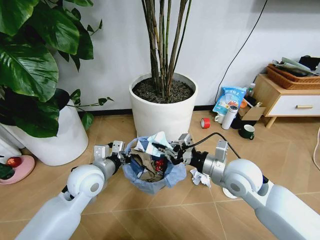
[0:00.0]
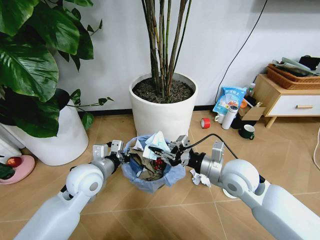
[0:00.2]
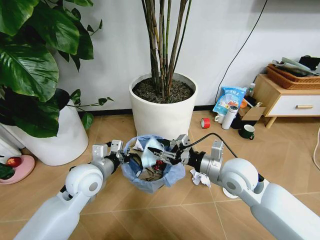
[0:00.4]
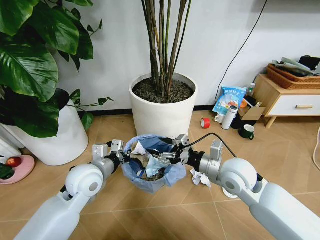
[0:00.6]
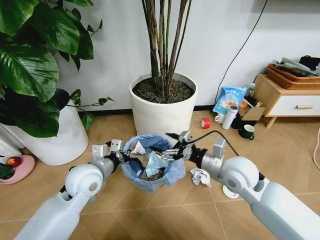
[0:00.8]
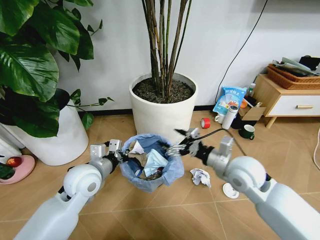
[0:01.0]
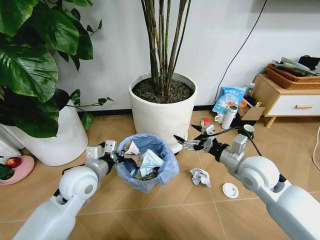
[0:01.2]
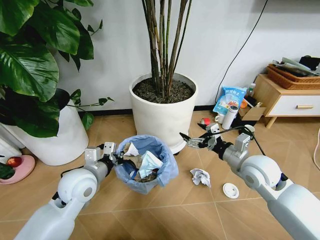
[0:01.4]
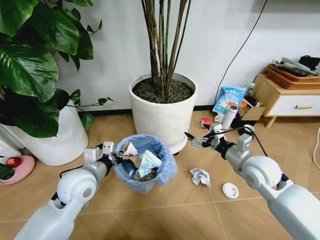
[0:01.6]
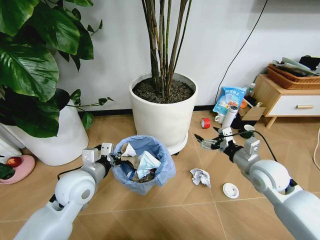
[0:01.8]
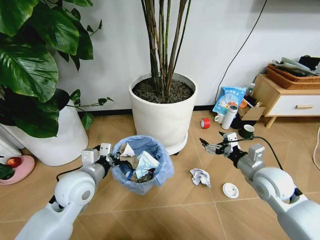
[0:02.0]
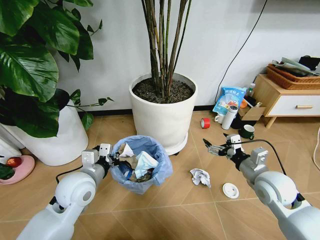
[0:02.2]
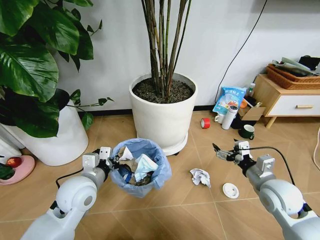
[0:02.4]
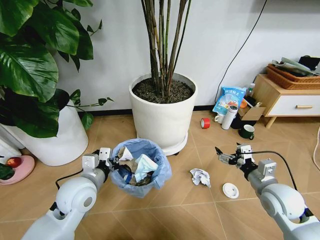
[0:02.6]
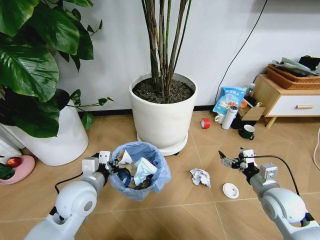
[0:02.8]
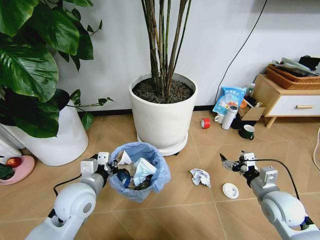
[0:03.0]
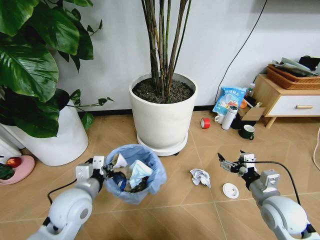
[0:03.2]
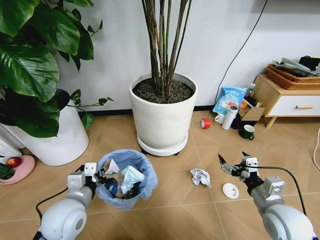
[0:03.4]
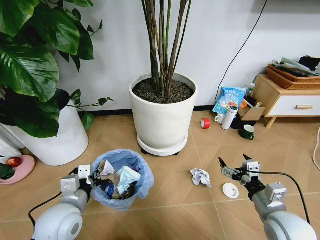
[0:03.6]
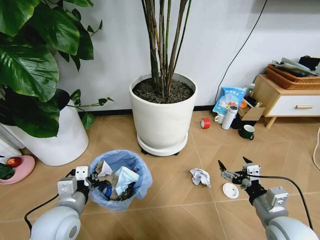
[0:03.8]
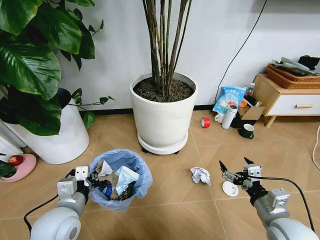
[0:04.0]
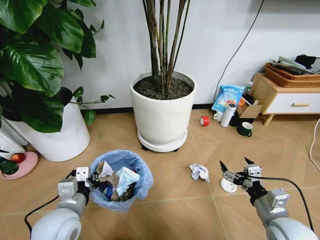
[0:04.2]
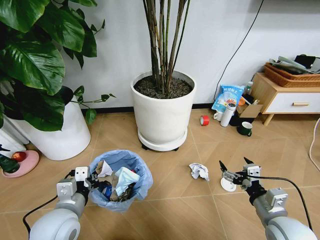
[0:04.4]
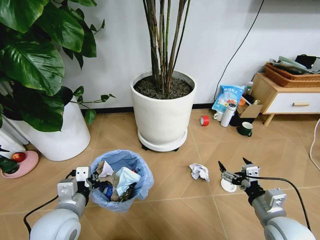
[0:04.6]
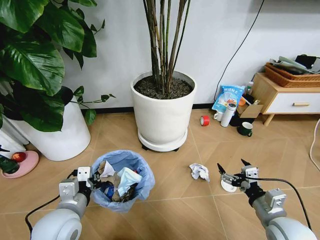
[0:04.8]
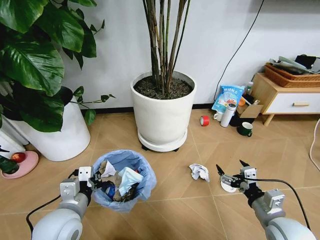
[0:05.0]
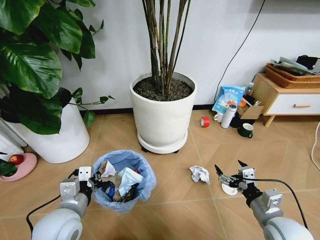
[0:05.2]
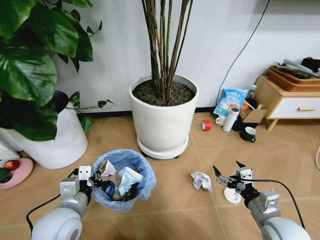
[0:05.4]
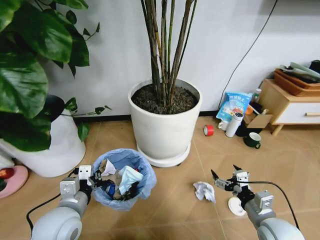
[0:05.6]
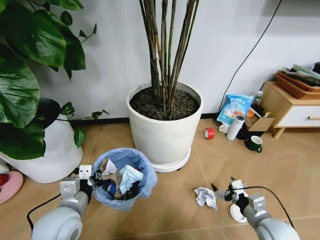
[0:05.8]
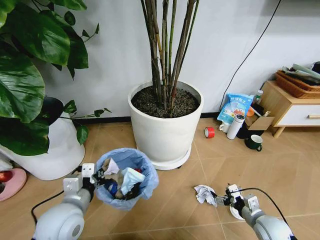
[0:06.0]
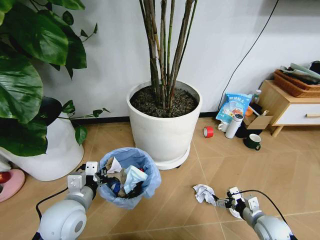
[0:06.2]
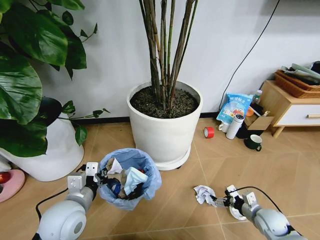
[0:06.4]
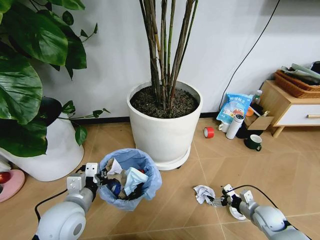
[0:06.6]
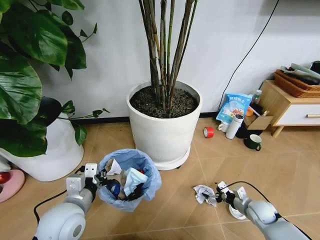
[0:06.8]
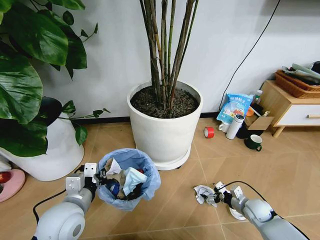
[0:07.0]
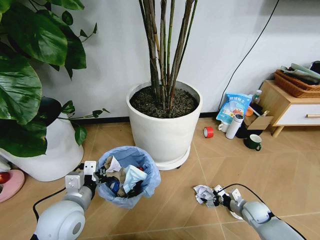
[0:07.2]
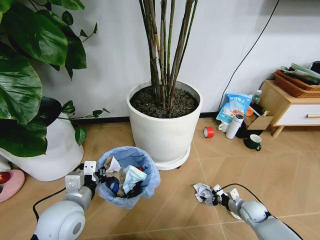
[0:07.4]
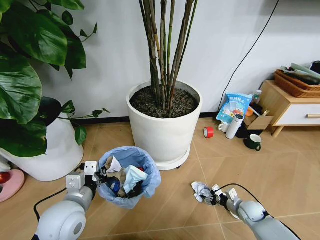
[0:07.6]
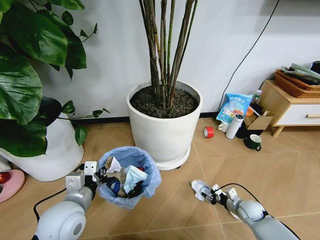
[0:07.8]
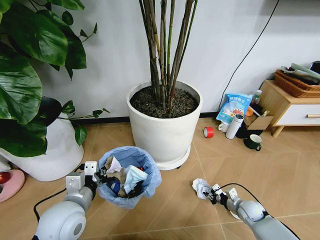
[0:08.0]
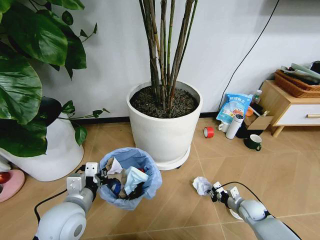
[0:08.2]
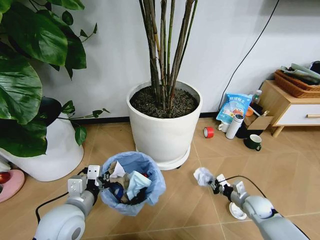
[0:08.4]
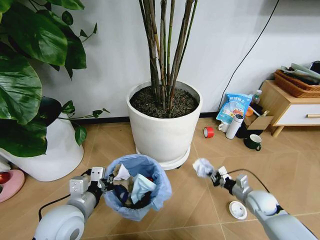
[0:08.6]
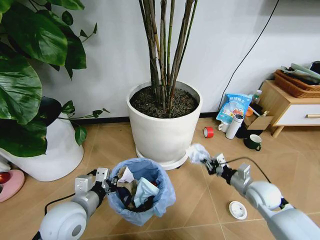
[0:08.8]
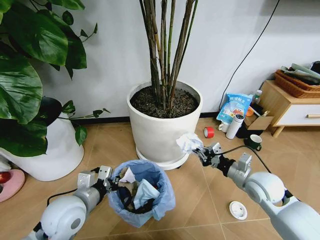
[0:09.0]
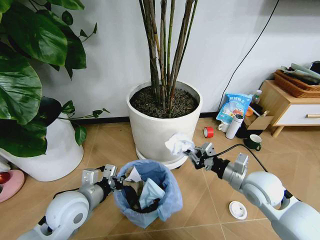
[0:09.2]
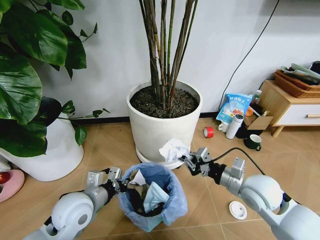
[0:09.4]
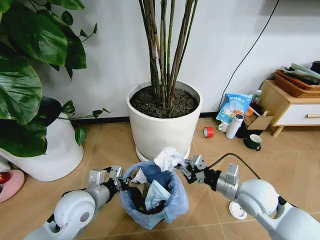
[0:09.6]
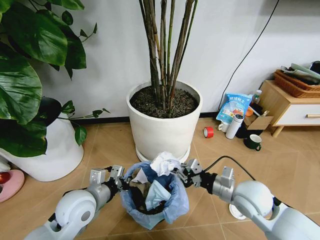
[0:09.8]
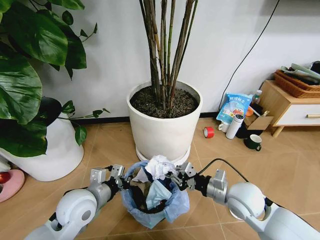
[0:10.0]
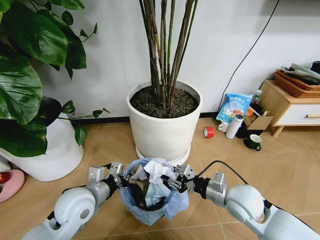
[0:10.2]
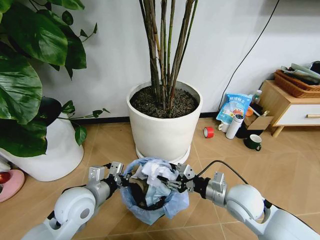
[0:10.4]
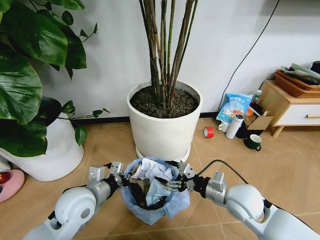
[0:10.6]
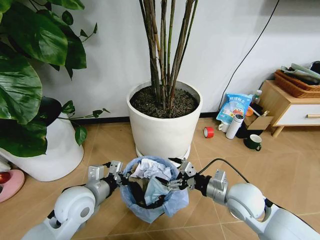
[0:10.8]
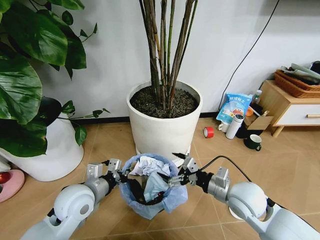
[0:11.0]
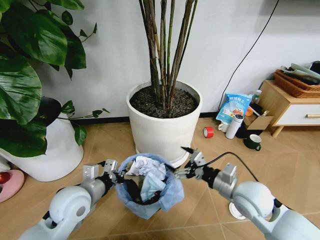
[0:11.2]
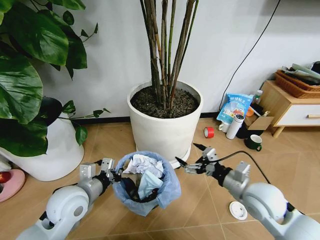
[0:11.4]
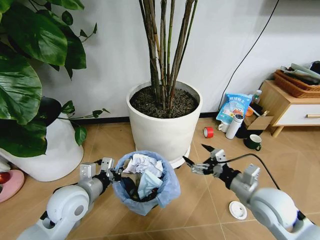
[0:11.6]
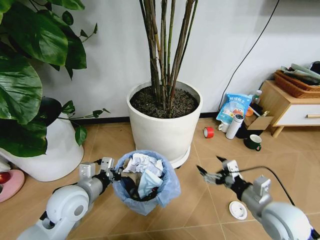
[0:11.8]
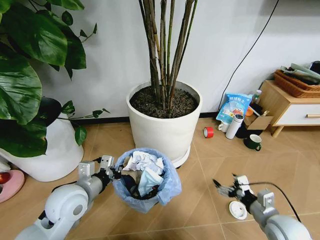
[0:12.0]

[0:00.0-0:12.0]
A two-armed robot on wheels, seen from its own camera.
Task of the whole recording: Pick up the trash bin and place the garbage on the floor into it.
0:00.0 to 0:01.6: The right gripper travels to the right by approximately 10 cm, and opens.
0:01.6 to 0:03.0: The right gripper is displaced backward, downward and to the right by approximately 10 cm.
0:03.0 to 0:04.4: The two grippers go approximately 5 cm backward.
0:04.4 to 0:06.0: The right gripper goes some 10 cm downward.
0:06.0 to 0:07.6: The right gripper is displaced downward and forward by some 15 cm, and closes up.
0:07.6 to 0:09.0: The right gripper moves upward, approximately 25 cm, and closes.
0:09.0 to 0:10.4: The right gripper is displaced to the left by about 10 cm, and opens its fingers.
0:10.4 to 0:12.0: The right gripper is displaced to the right, backward and downward by about 15 cm, and opens.

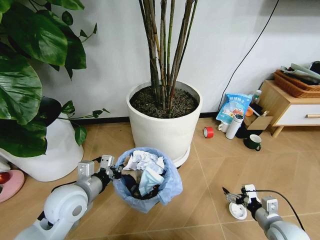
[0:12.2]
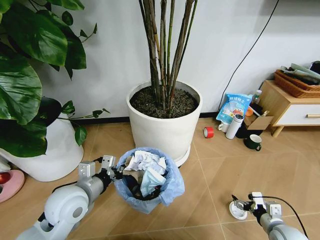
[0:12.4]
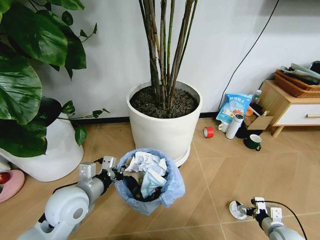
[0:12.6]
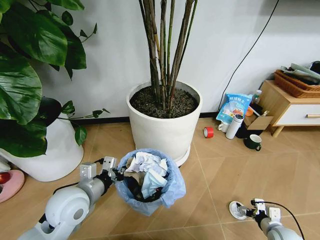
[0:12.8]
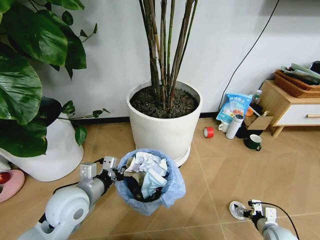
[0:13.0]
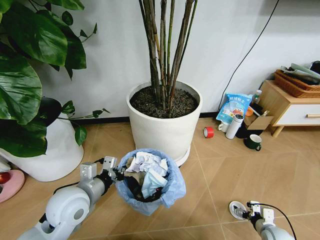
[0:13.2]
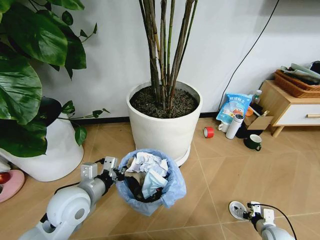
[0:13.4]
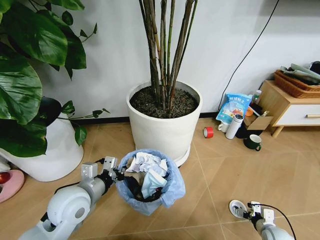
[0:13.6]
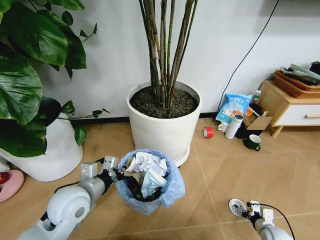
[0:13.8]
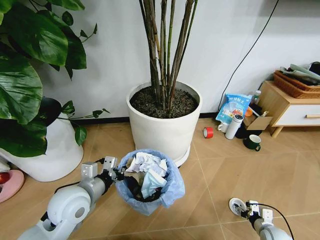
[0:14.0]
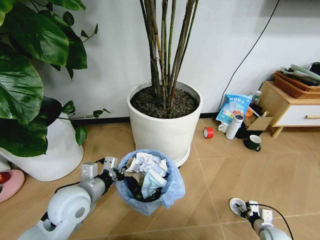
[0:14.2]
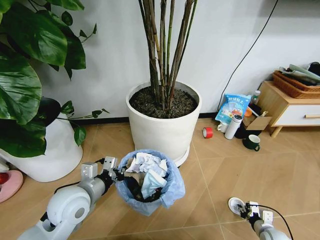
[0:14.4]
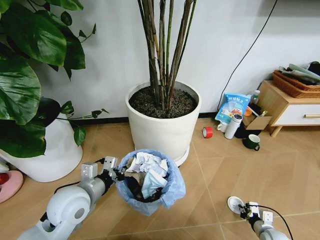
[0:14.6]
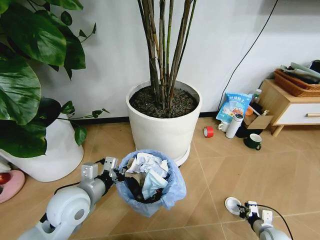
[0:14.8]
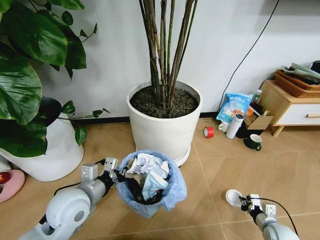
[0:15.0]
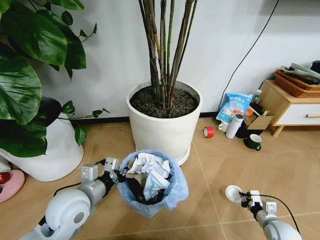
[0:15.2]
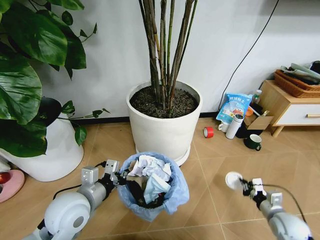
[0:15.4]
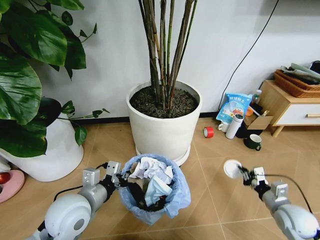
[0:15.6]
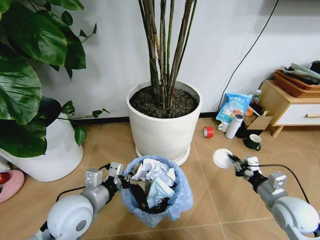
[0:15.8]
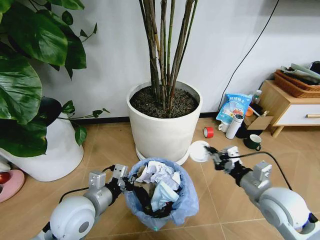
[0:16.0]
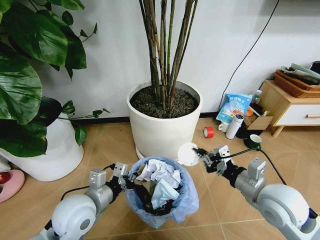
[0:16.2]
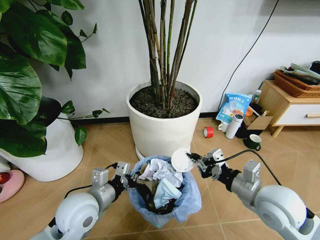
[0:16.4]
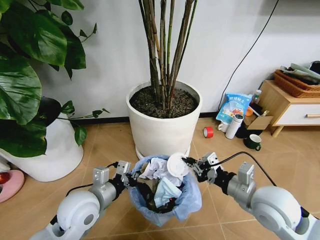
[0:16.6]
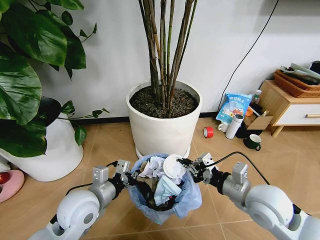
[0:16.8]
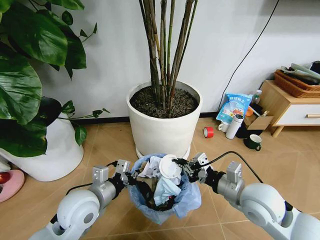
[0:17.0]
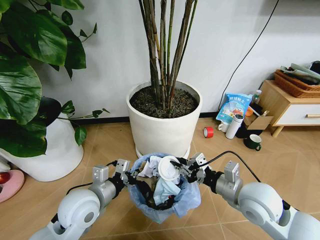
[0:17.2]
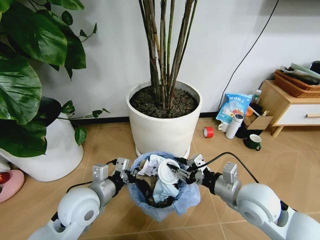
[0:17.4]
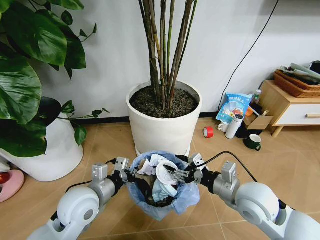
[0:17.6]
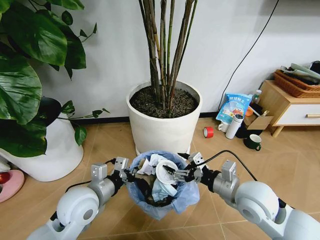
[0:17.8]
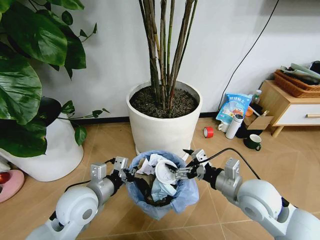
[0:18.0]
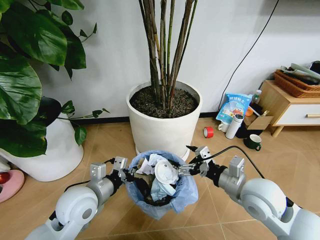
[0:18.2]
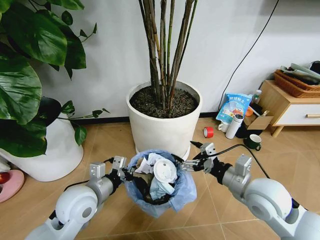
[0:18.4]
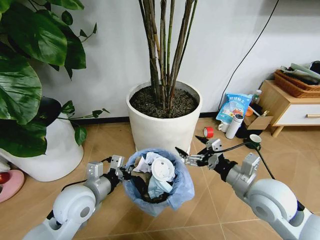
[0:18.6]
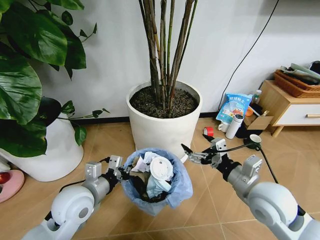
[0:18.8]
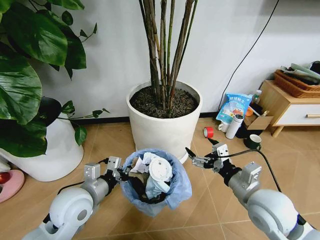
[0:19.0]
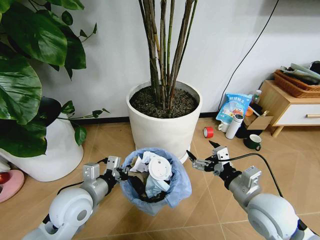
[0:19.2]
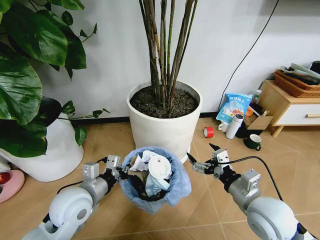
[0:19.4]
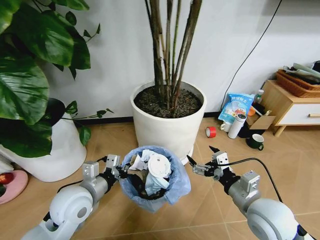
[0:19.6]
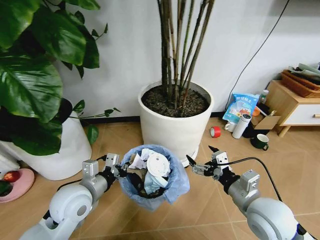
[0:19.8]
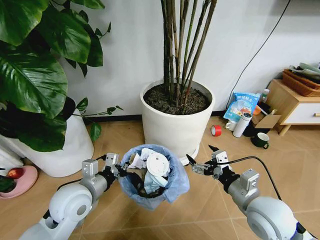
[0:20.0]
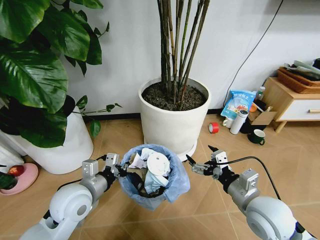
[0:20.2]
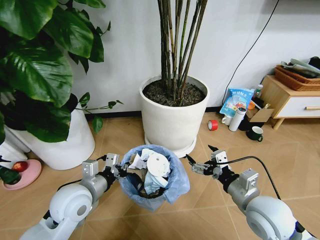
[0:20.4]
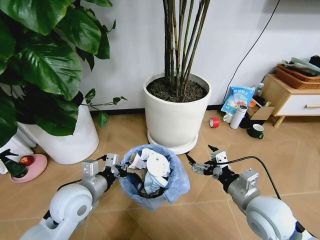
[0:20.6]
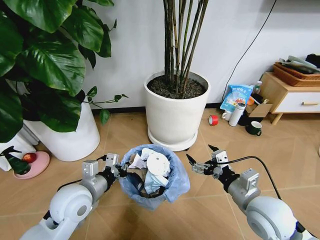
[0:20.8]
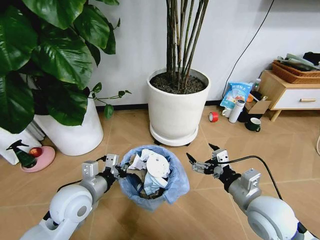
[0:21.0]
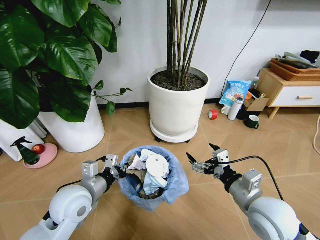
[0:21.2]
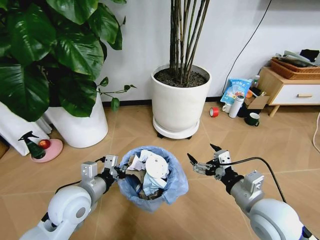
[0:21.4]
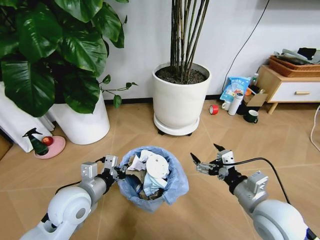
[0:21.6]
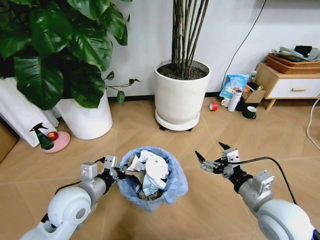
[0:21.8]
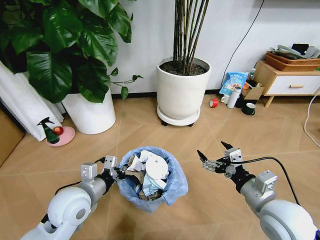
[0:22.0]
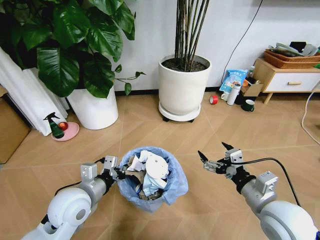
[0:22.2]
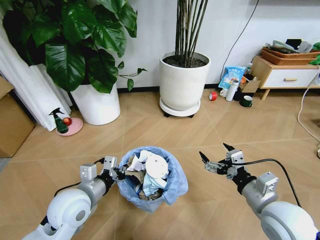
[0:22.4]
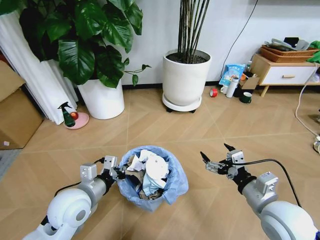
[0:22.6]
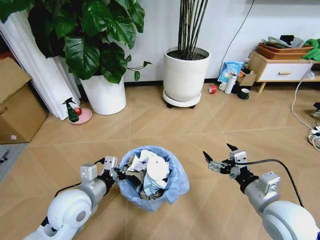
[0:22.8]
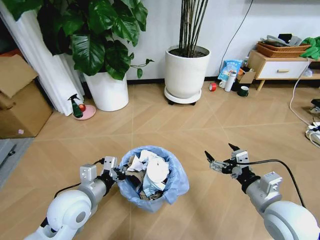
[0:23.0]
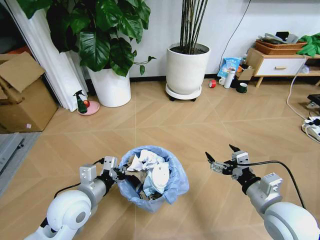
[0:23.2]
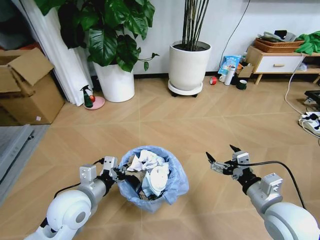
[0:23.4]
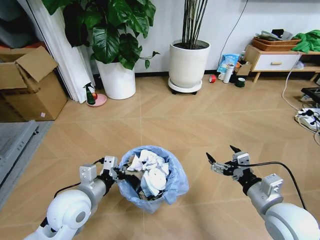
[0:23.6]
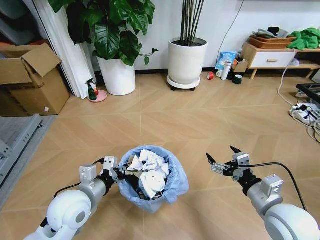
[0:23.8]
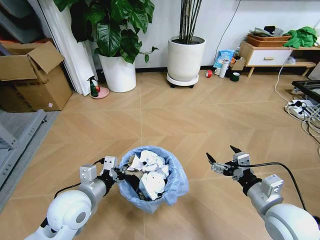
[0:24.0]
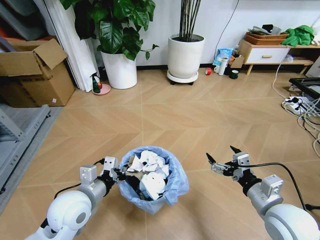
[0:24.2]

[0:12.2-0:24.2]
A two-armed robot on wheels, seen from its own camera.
Task of the whole recording: Pick up the trash bin and place the garbage on the floor into it.
0:12.2 to 0:13.8: The right gripper is displaced downward by some 15 cm.
0:13.8 to 0:15.2: The right gripper is displaced upward by some 5 cm, and closes up.
0:15.2 to 0:16.6: The right gripper moves upward and to the left, roughly 30 cm.
0:16.6 to 0:18.2: The right gripper opens.
